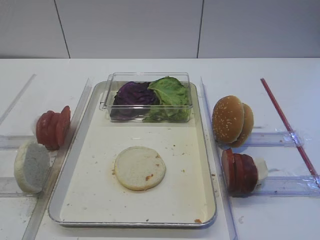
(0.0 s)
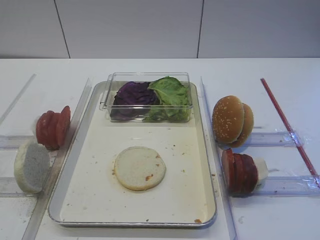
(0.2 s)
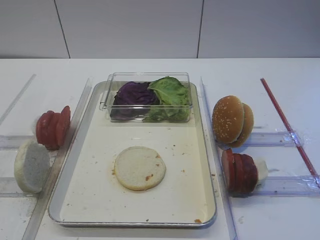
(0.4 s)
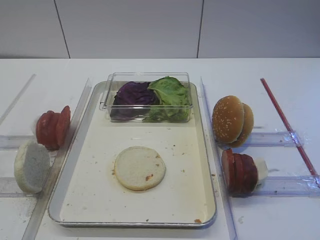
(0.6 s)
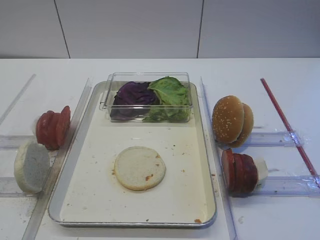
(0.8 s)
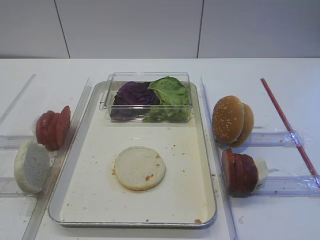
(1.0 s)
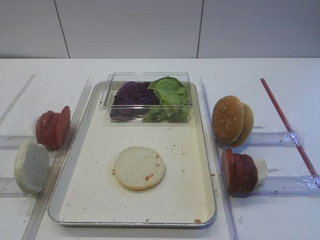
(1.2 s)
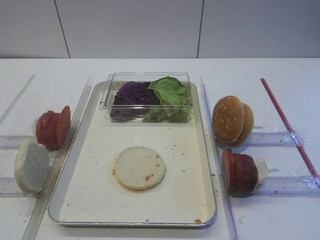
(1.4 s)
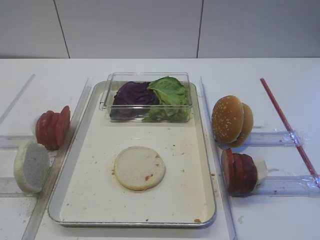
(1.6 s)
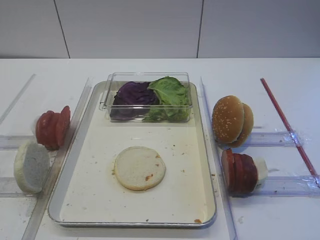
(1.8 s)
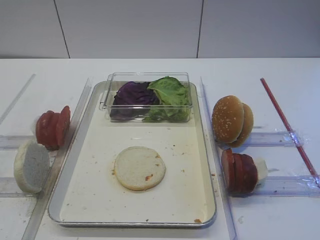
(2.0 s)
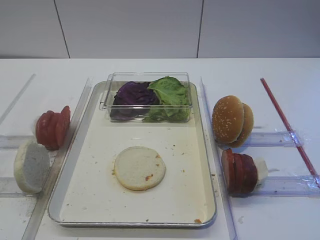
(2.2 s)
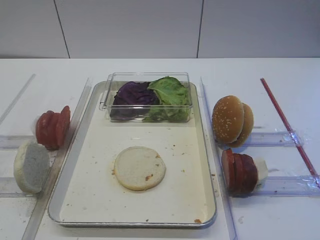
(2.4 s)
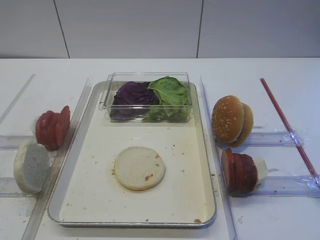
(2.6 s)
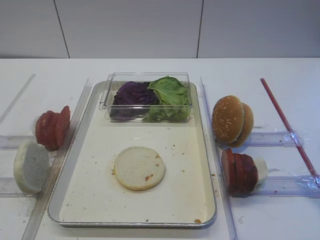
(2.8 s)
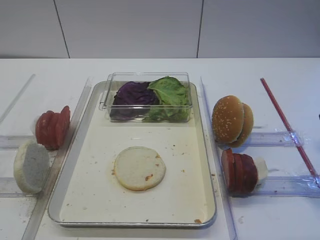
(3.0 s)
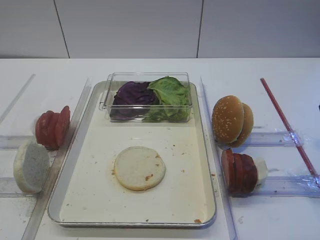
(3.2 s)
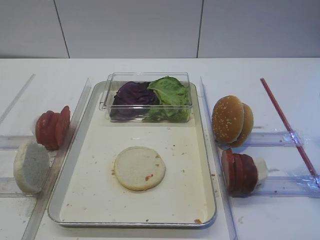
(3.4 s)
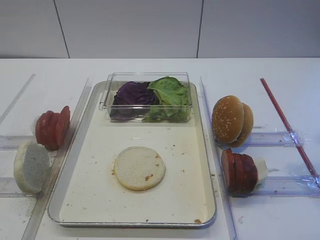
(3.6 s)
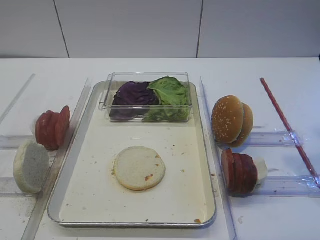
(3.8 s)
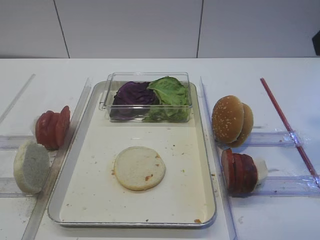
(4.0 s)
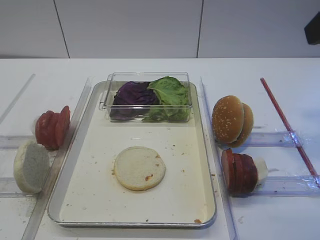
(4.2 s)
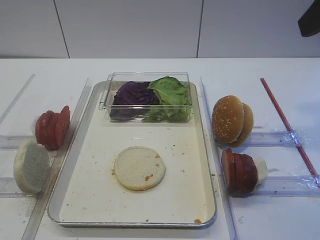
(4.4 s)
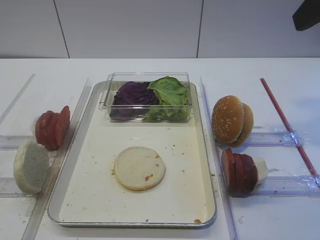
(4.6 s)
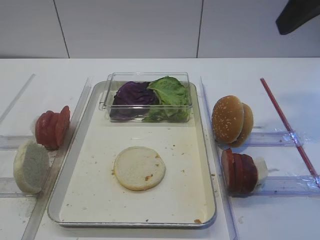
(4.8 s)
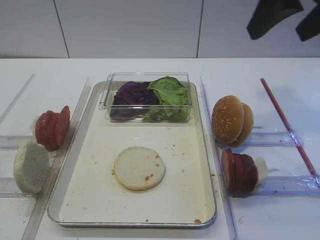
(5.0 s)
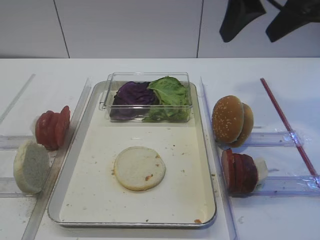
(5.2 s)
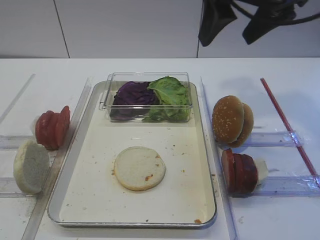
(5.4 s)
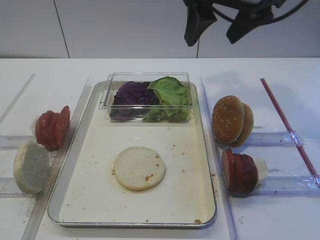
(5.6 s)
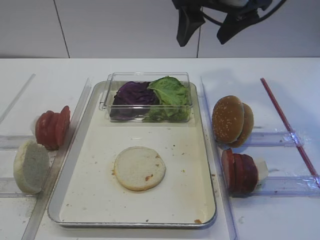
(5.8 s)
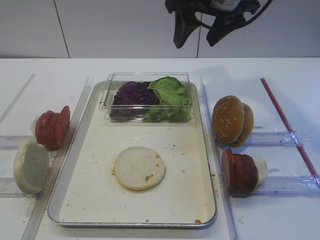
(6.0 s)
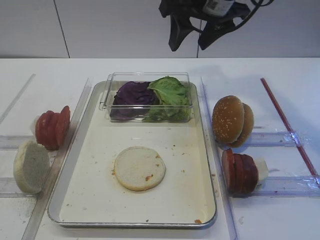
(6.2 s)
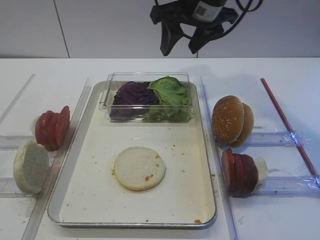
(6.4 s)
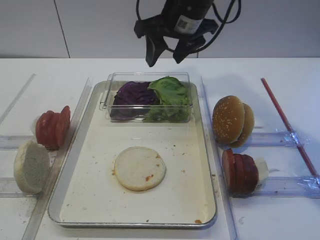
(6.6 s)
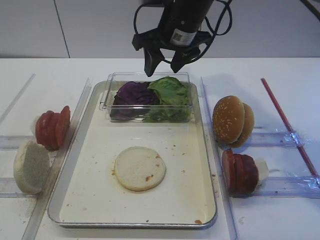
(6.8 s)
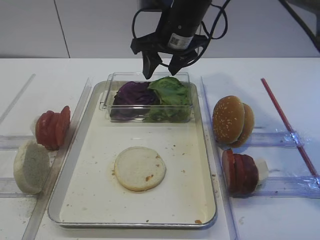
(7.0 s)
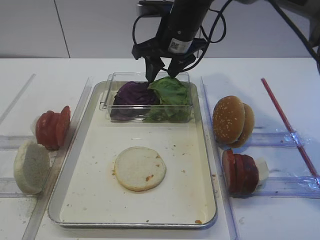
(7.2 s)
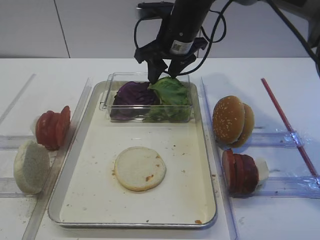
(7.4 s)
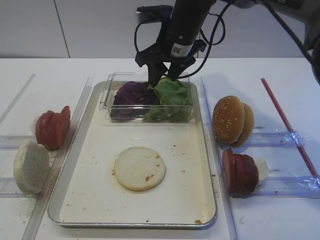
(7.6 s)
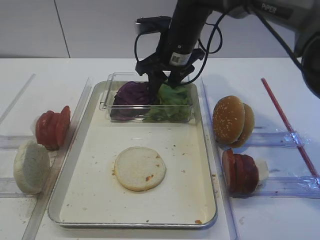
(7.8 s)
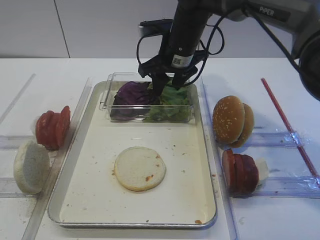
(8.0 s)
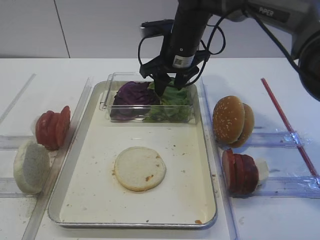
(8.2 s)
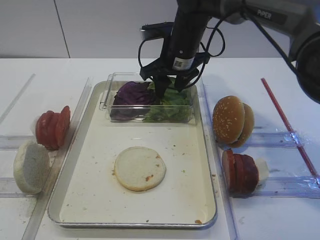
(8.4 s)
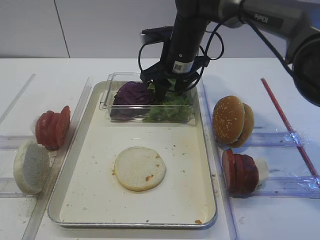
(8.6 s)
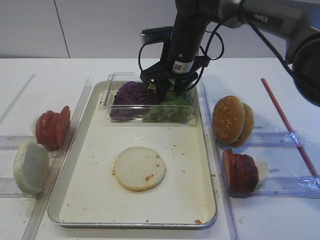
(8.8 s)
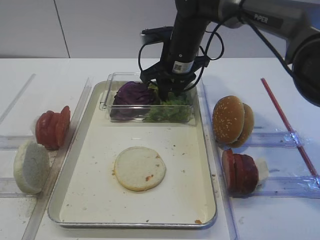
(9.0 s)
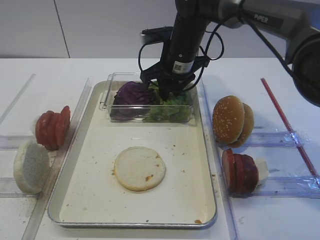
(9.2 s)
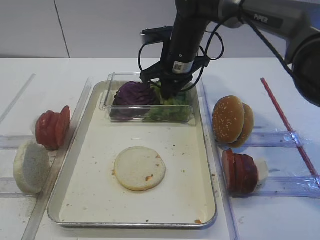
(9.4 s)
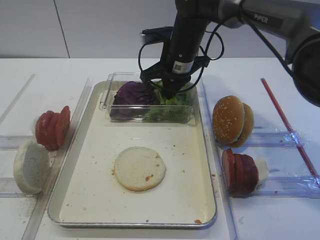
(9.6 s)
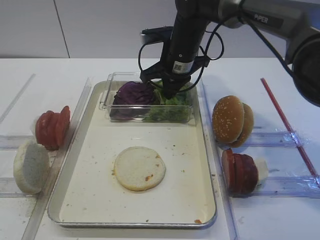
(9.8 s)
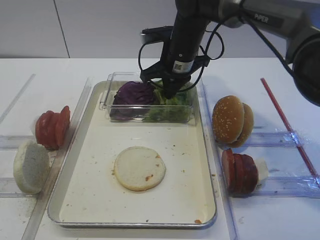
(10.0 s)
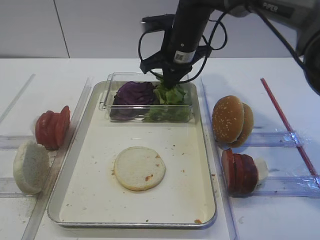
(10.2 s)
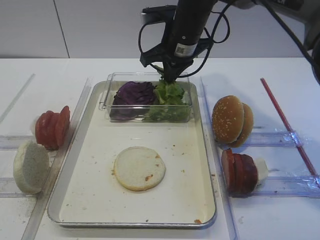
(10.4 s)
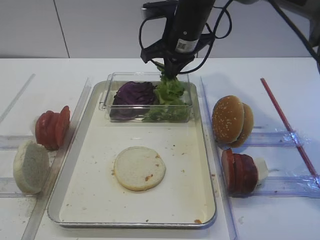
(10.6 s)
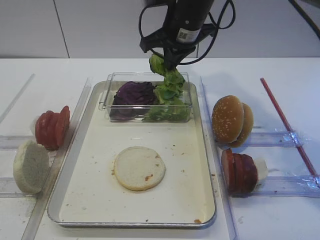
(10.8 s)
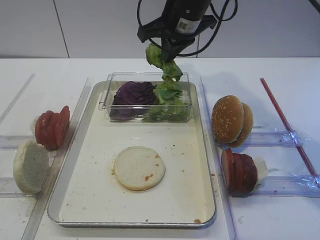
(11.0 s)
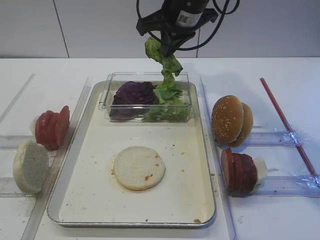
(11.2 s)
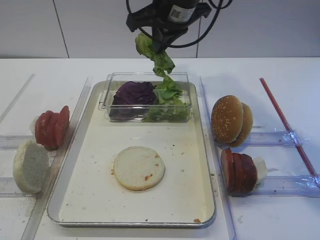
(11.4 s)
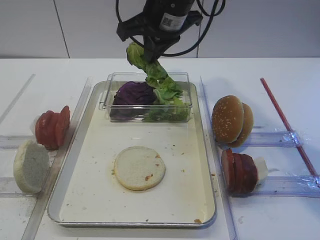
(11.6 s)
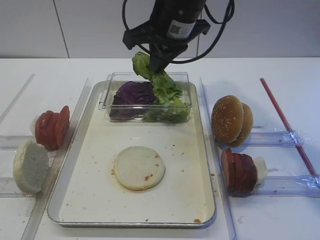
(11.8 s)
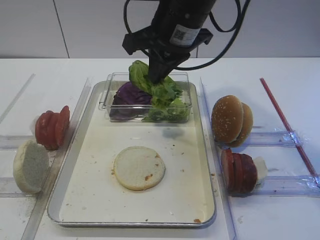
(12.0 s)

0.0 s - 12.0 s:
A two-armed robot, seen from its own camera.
Step, 0.0 s - 10.4 s: Pick up the lettuce leaf with the right gripper.
3.0 s - 4.4 s: The right gripper is displaced forward and upward by about 10 cm.
4.4 s - 6.0 s: The right gripper moves forward and to the left, roughly 20 cm.
6.0 s - 7.6 s: The right gripper goes some 15 cm downward, to the left and forward.
7.6 s - 9.0 s: The grippers make only small movements.
9.0 s - 10.4 s: The right gripper closes its fingers.
10.4 s - 12.0 s: The right gripper moves backward and upward, about 10 cm.

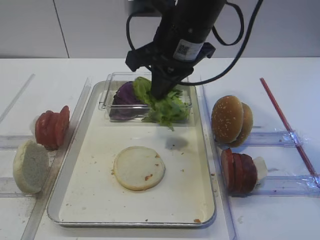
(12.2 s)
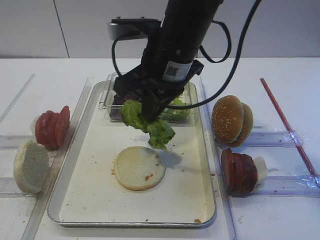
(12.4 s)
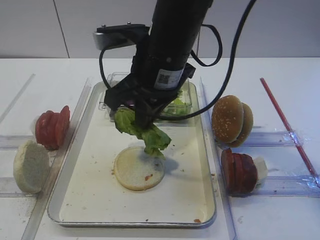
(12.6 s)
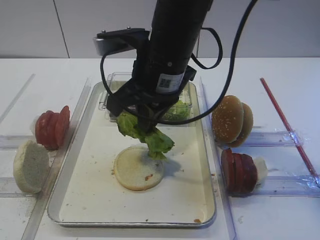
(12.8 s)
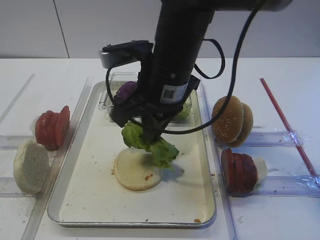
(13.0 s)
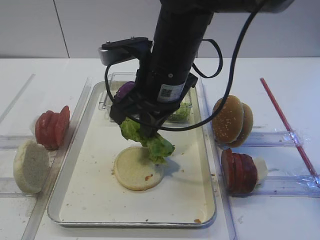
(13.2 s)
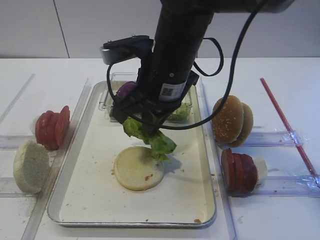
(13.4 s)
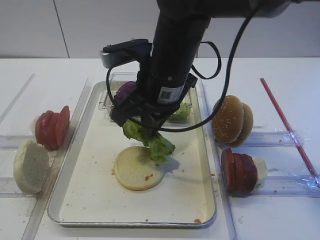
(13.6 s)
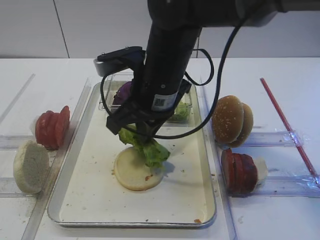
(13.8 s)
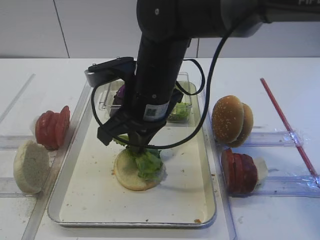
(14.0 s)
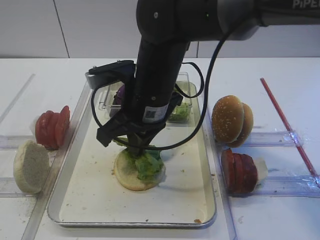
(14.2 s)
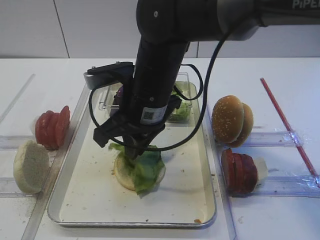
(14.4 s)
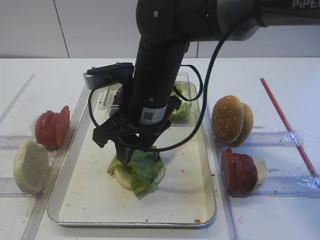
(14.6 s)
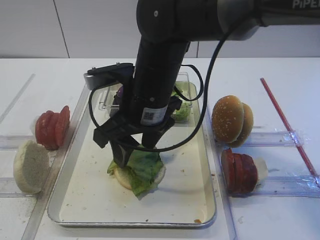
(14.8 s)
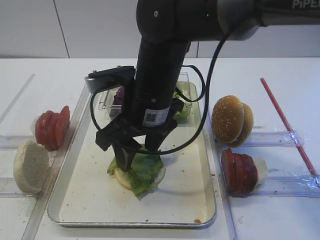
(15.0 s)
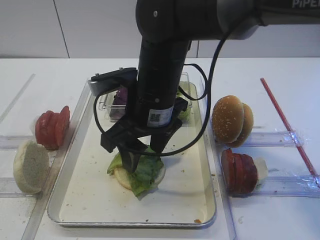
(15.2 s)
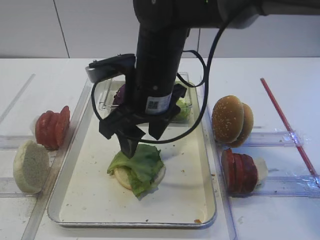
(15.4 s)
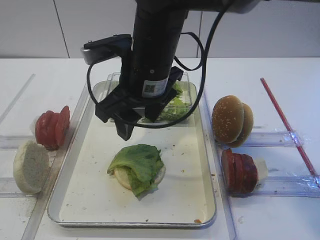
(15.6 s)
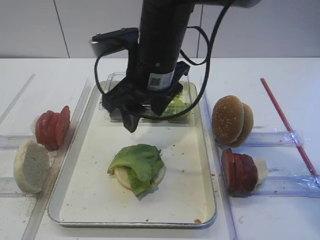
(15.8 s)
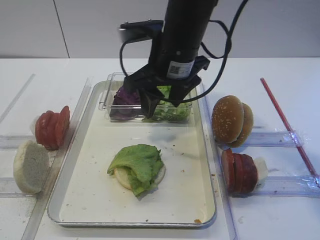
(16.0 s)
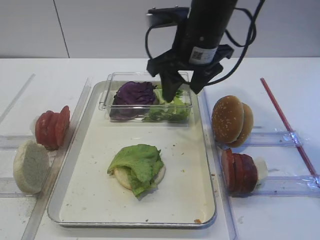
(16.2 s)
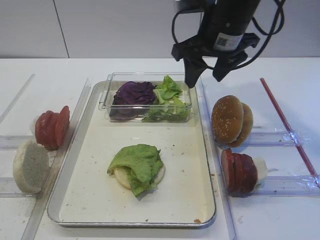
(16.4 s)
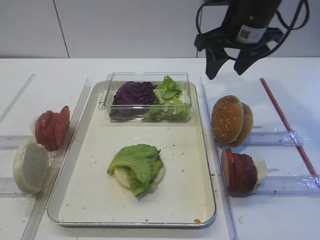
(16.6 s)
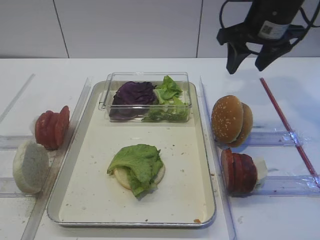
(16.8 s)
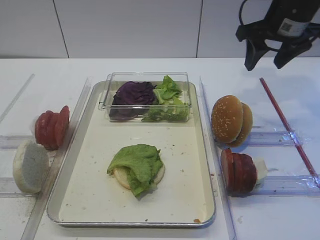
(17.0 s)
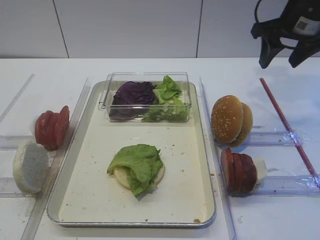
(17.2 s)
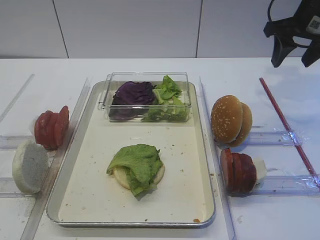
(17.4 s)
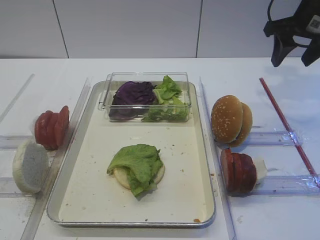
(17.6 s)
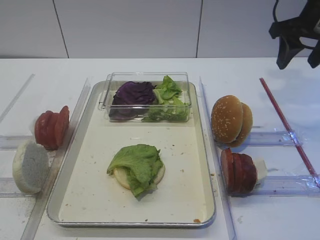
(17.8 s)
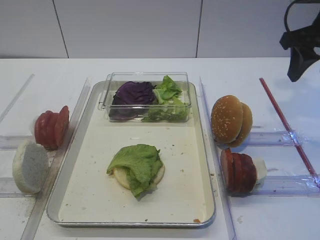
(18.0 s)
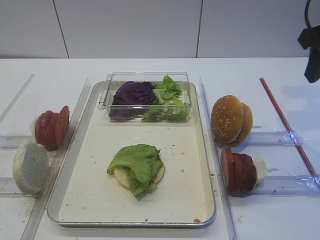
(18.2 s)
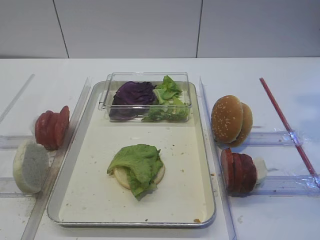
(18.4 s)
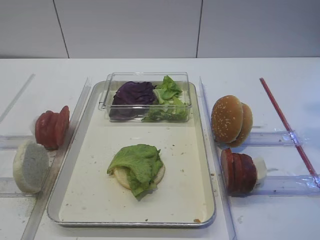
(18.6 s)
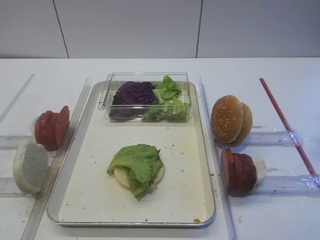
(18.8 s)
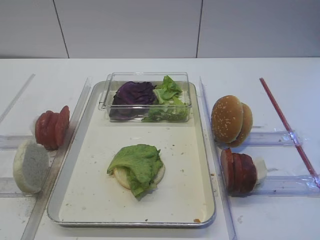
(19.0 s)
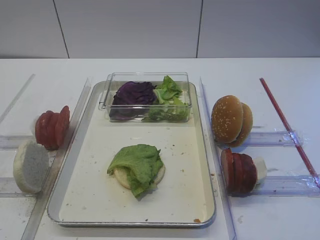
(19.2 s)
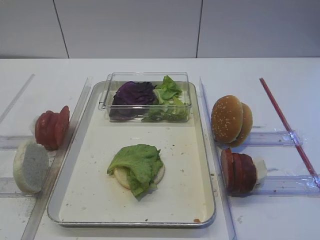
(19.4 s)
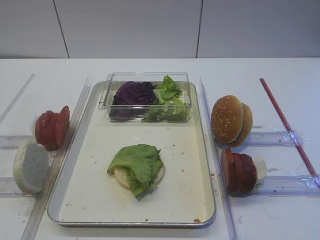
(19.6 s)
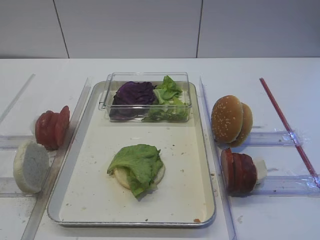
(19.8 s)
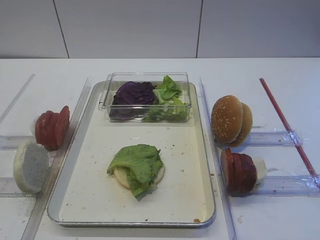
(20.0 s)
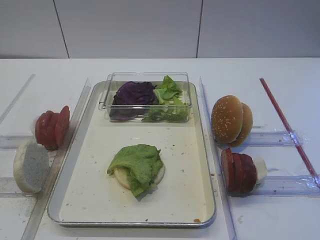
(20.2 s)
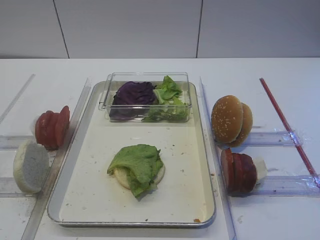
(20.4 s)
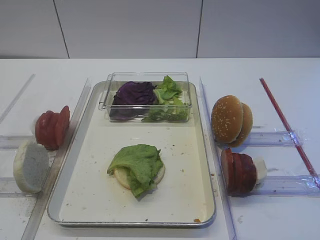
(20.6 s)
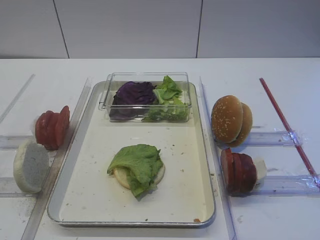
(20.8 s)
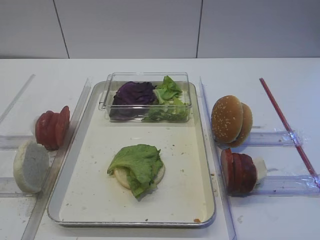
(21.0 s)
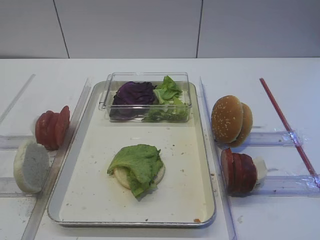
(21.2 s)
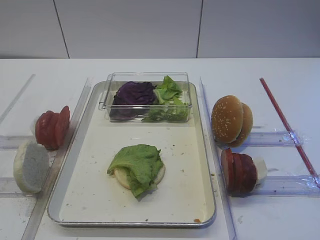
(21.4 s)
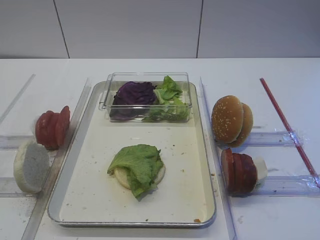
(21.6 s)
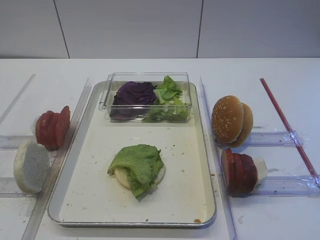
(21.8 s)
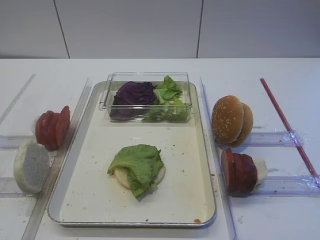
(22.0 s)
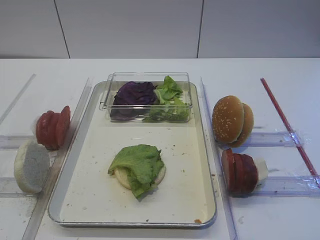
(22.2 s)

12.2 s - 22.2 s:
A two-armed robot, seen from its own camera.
Step, 12.2 s - 14.8 s: Place the lettuce leaf on the bread slice with the right gripper.
12.2 s - 13.6 s: The right gripper ends up about 5 cm from where it was.
13.6 s - 15.0 s: The right gripper opens its fingers.
15.0 s - 16.4 s: The right gripper travels to the right, forward and upward by some 15 cm.
16.4 s - 18.0 s: The right gripper shifts some 15 cm to the right.
18.0 s - 19.4 s: The right gripper moves backward, roughly 30 cm.
20.8 s - 22.2 s: Both grippers stay about where they are.
